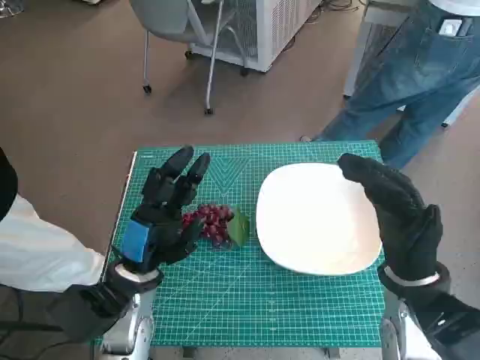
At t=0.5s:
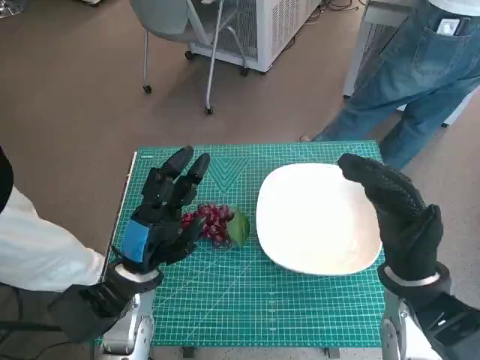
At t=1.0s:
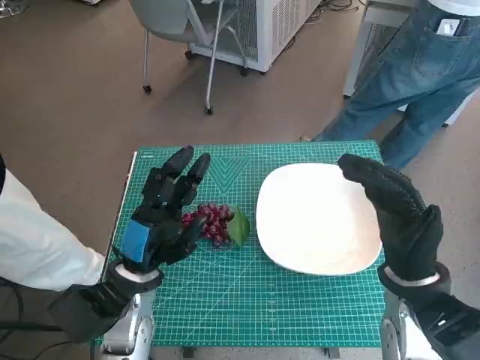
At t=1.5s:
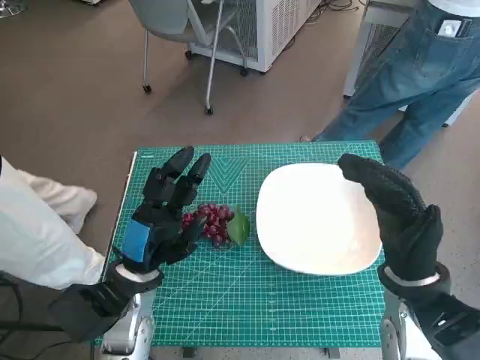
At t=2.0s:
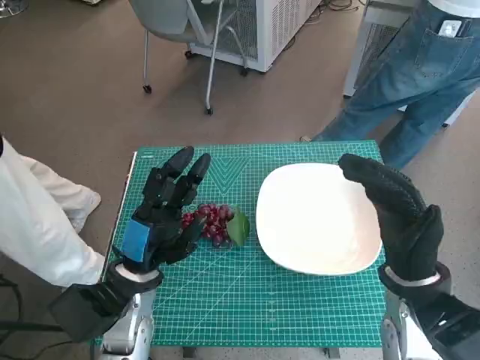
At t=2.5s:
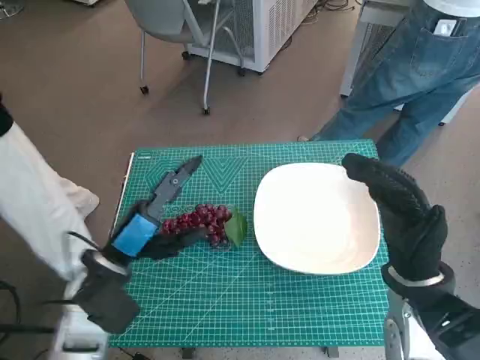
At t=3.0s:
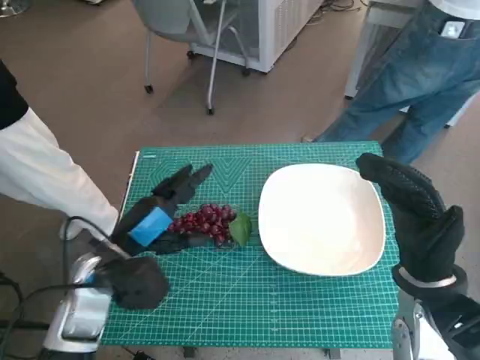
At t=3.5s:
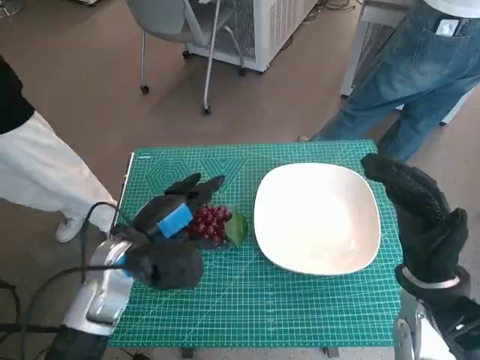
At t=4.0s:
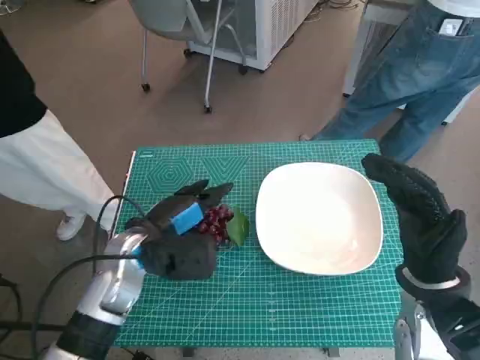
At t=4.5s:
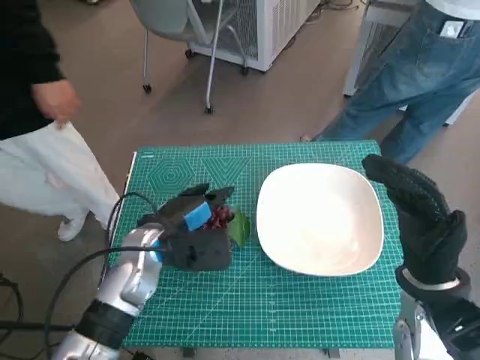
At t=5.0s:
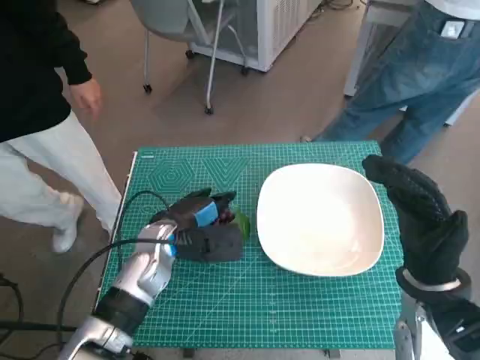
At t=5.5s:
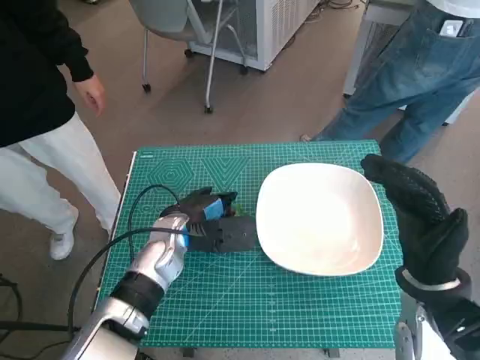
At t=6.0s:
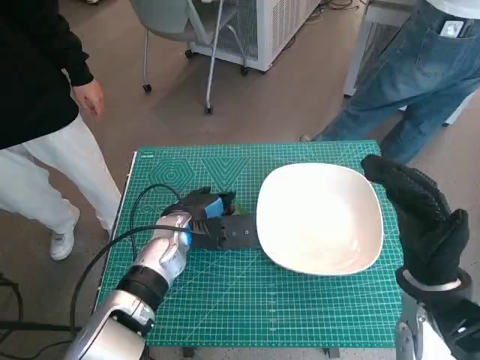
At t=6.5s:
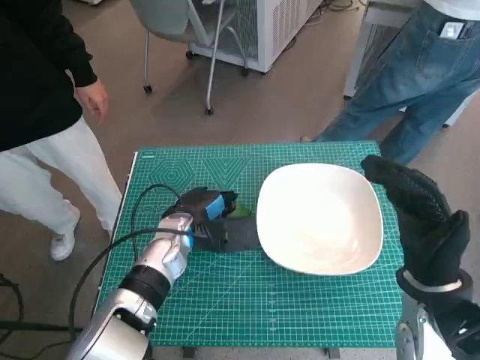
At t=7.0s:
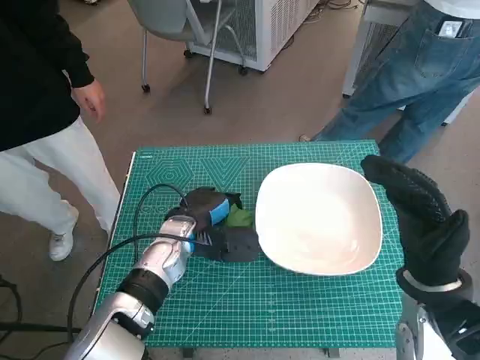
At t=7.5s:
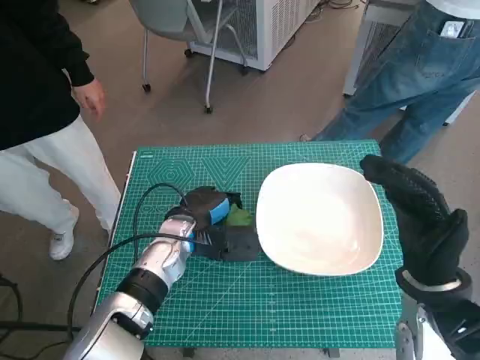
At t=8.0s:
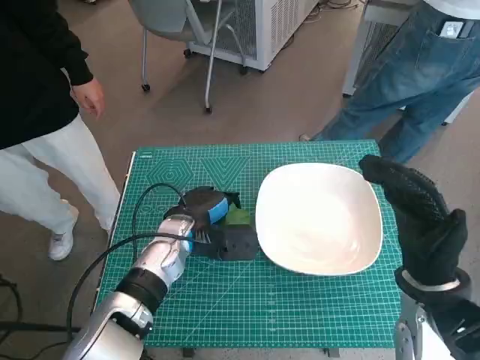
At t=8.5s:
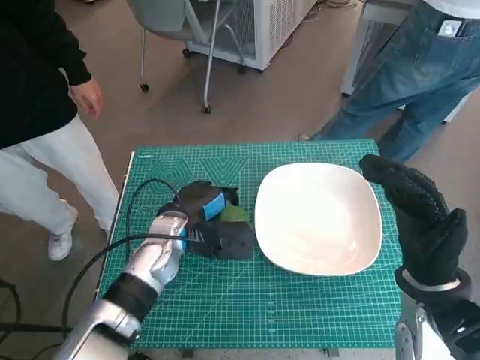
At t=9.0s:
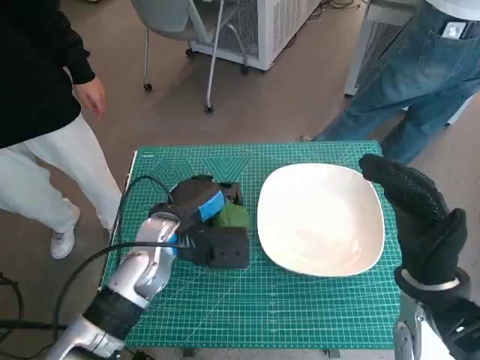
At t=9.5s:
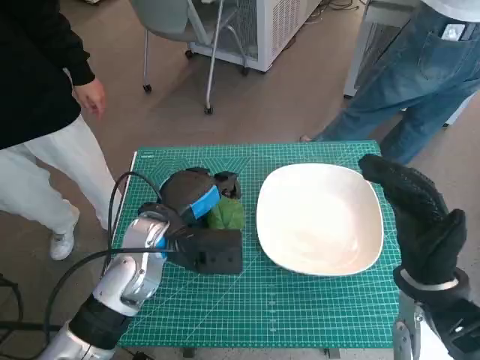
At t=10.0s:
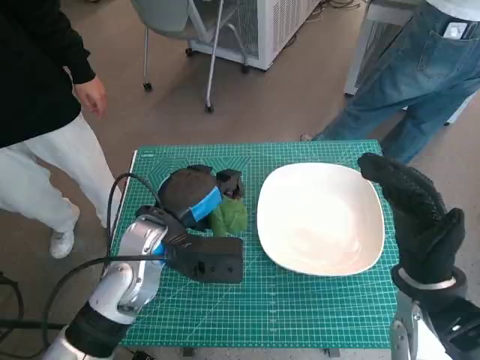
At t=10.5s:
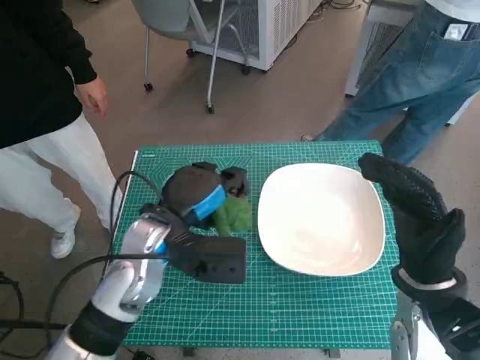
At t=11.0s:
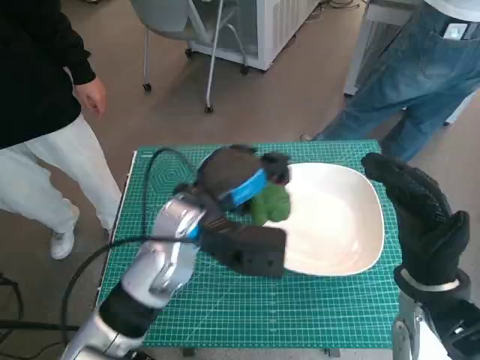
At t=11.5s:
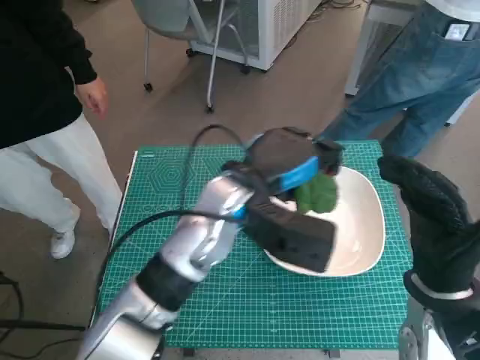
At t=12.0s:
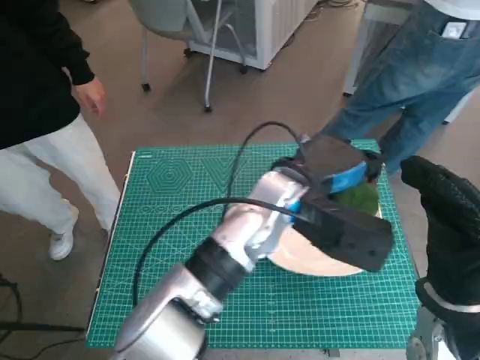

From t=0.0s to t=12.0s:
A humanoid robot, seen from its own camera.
Task of the whole recording: Pick up the grapes and put them on the plate.
Step, from t=0.0s to t=6.5s: Grasp the grapes with left hand.
From t=2.0s to t=4.0s: The left hand changes place by approximately 5 cm.
From t=4.0s to t=6.0s: The left hand heads forward, covering roughly 5 cm.
From t=6.0s to t=8.0s: The hands make only small movements.
From t=8.0s to t=10.0s: The left hand moves upward and backward, approximately 10 cm.
From t=10.0s to t=12.0s: The left hand shifts about 15 cm to the right.

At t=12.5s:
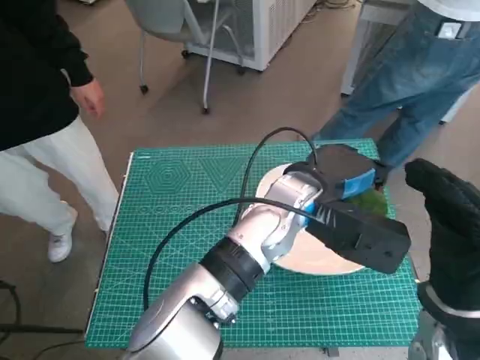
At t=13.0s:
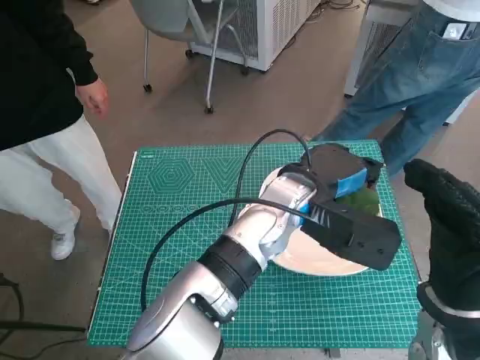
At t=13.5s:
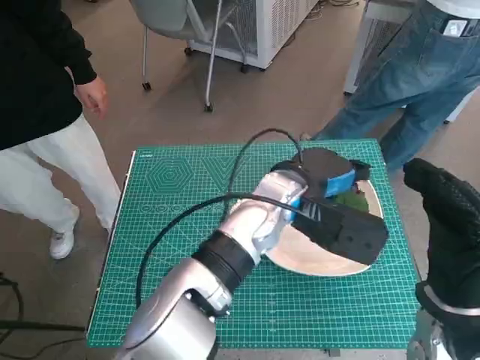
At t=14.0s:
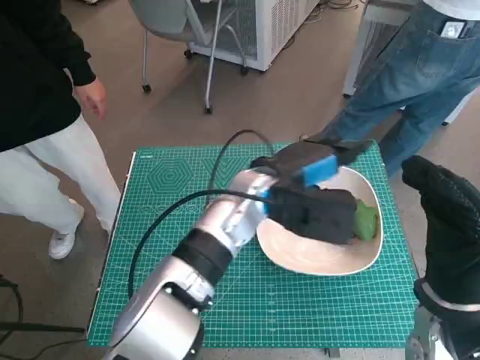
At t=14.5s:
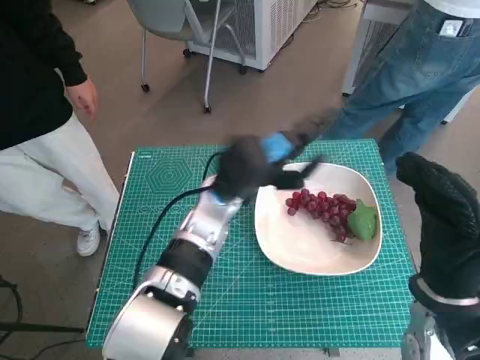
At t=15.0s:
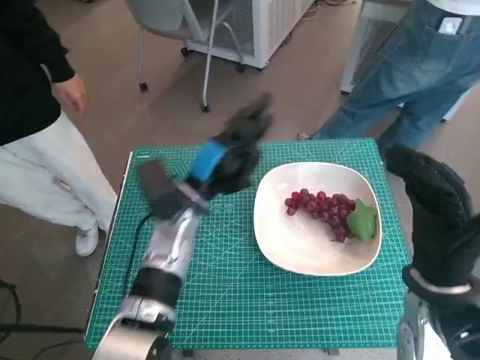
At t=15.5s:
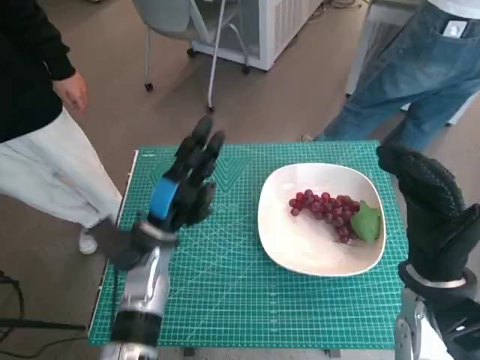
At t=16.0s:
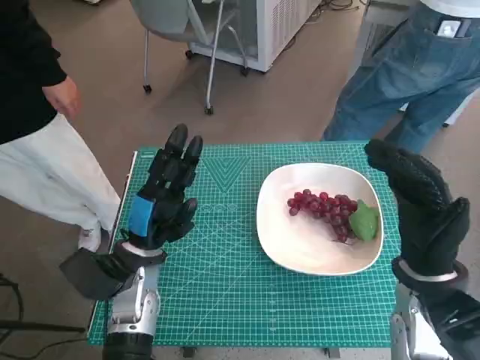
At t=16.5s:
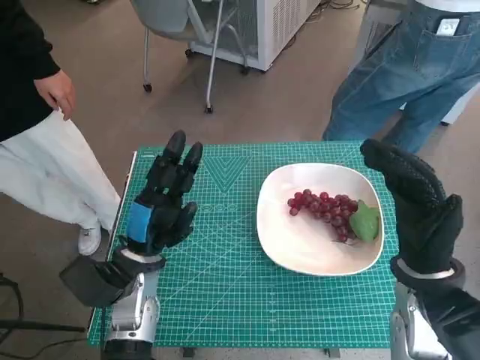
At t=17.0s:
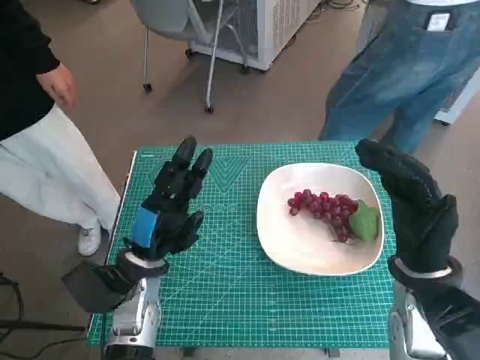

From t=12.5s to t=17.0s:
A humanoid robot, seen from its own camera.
Task of the whole recording: Pick up the grapes and put them on the plate.
From t=12.5s to t=14.5s: The left hand moves to the left, about 10 cm.
From t=14.5s to t=17.0s: The left hand is displaced to the left, backward and downward by some 15 cm.

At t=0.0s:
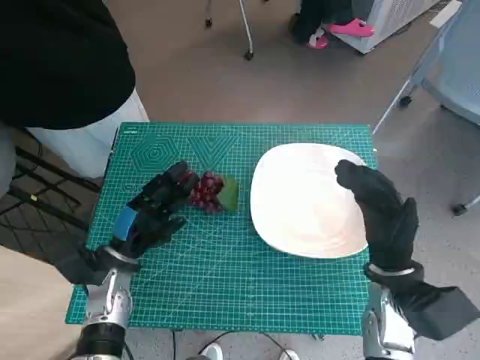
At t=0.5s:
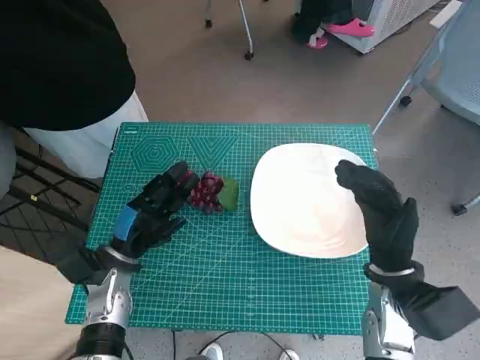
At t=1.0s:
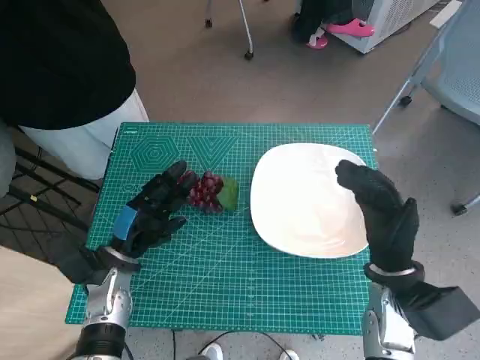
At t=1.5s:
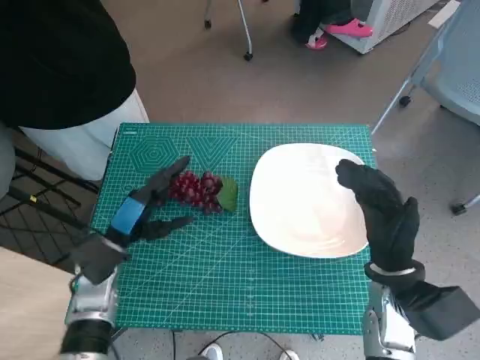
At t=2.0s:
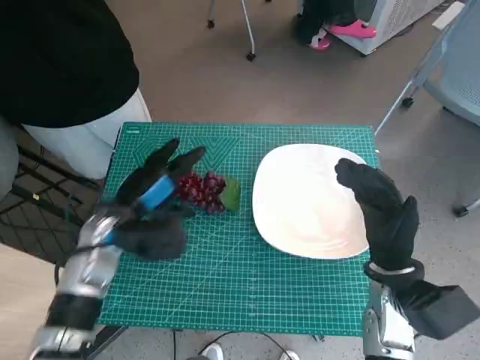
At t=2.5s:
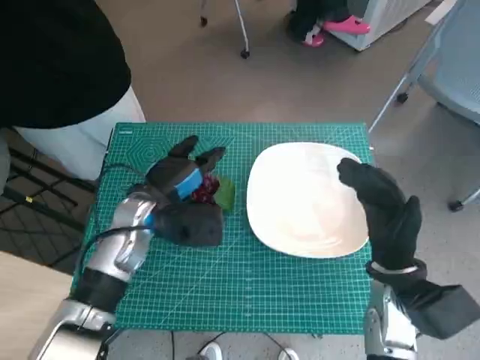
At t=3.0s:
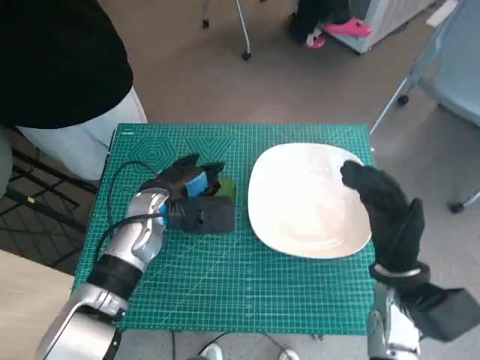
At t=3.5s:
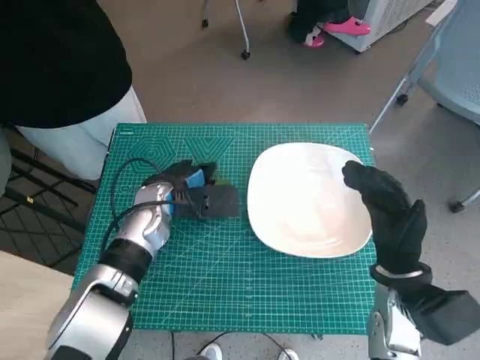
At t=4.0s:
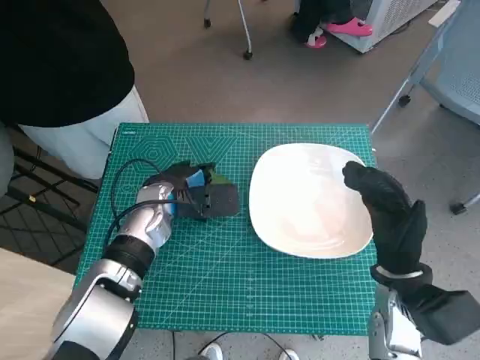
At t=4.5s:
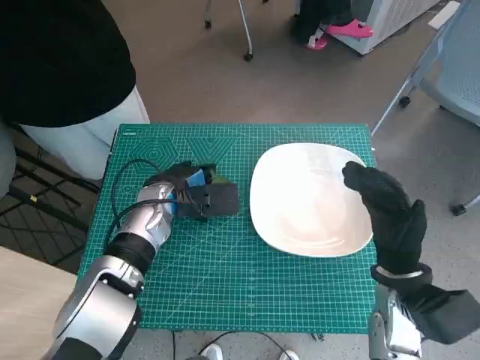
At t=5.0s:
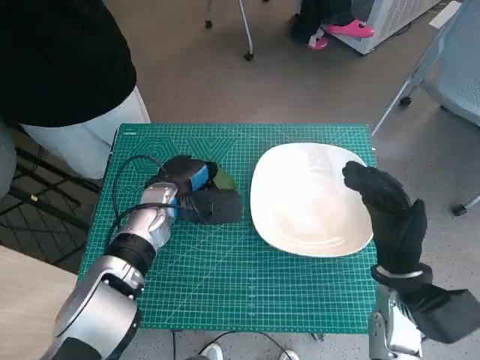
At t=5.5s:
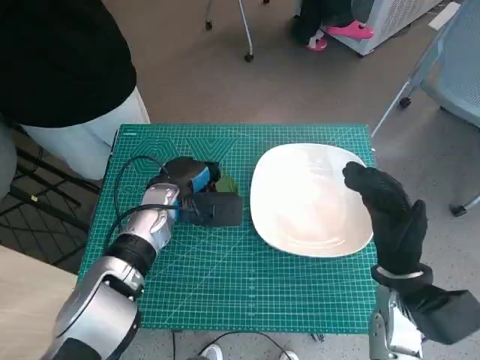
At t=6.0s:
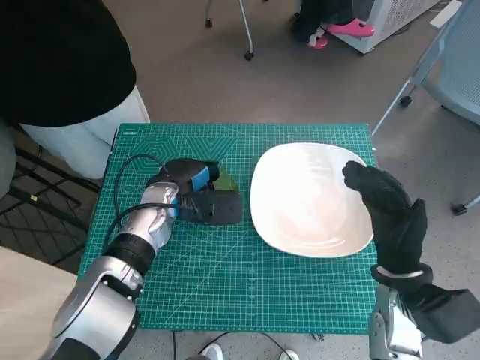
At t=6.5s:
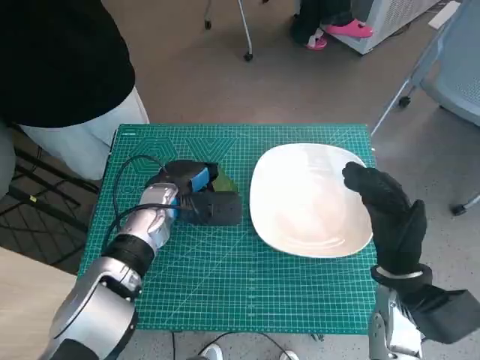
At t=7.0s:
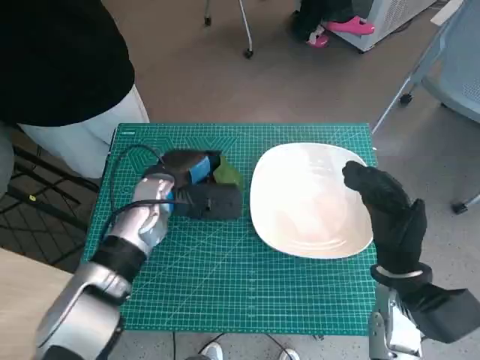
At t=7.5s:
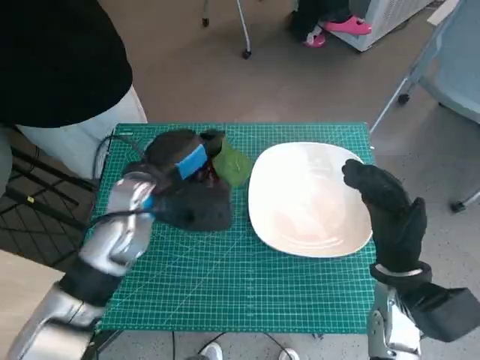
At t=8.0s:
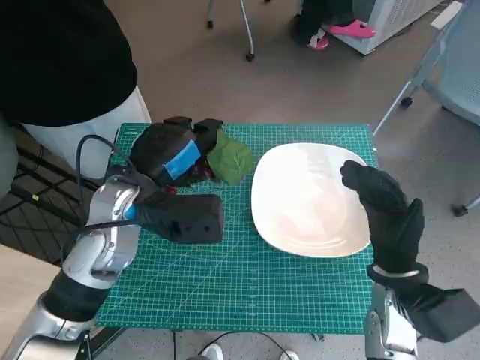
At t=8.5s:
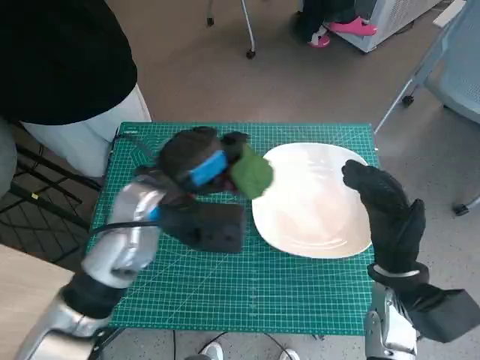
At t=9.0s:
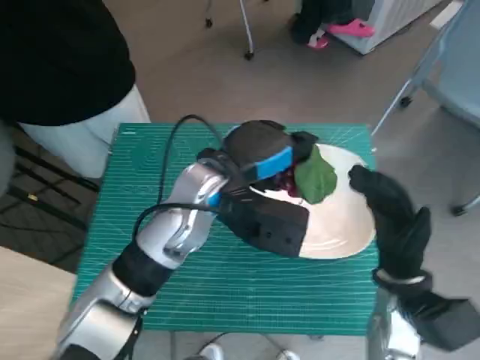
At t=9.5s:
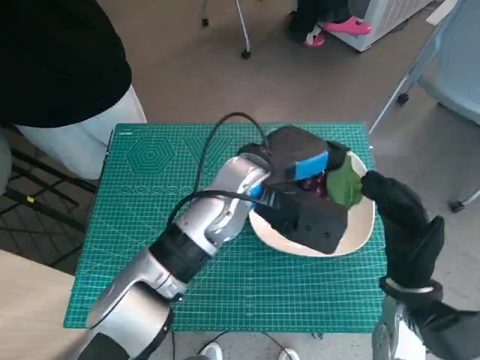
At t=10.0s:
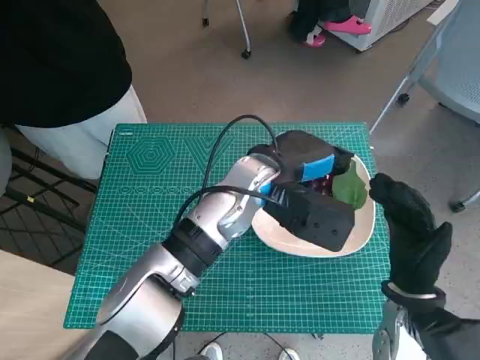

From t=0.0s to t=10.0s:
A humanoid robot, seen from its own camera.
Task of the whole recording: Pick up the grapes and put them on the plate.
Step, from t=0.0s to t=5.0s: Grasp the grapes with left hand.
From t=2.0s to t=4.0s: The left hand is displaced forward and to the right by roughly 10 cm.
From t=4.0s to t=6.0s: There are only small adjustments of the hands.
From t=6.0s to t=8.0s: The left hand heads upward and backward, covering roughly 10 cm.
From t=8.0s to t=10.0s: The left hand goes approximately 15 cm to the right.
